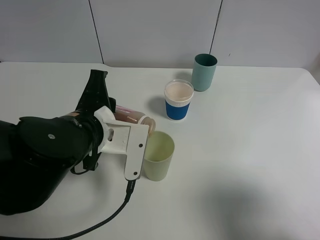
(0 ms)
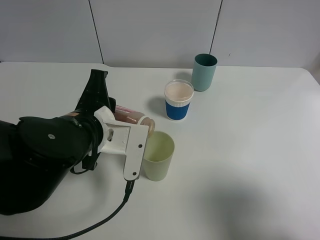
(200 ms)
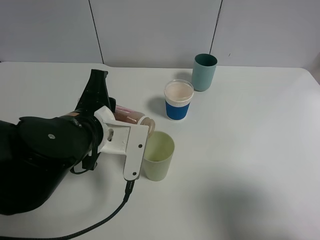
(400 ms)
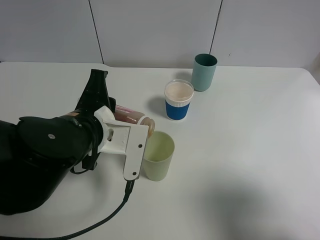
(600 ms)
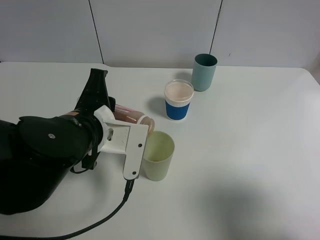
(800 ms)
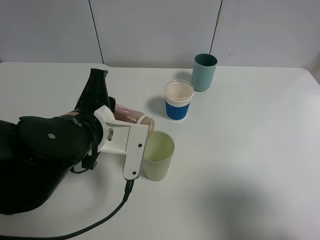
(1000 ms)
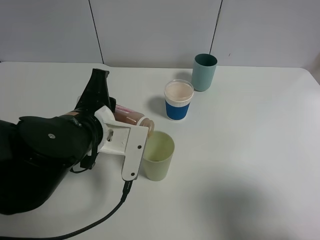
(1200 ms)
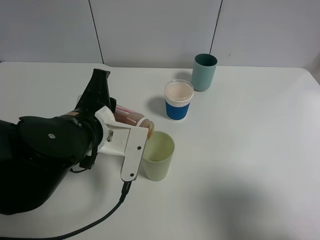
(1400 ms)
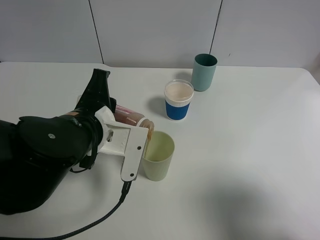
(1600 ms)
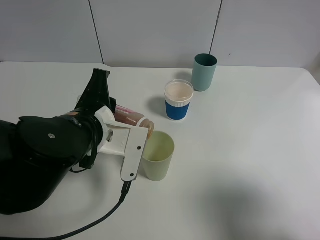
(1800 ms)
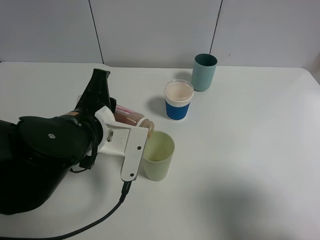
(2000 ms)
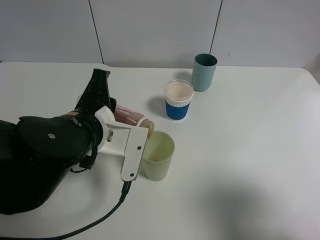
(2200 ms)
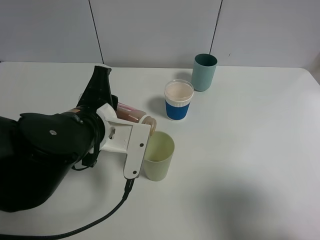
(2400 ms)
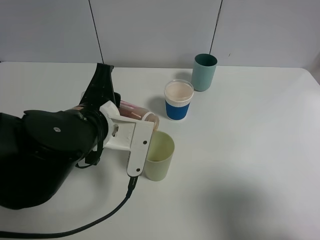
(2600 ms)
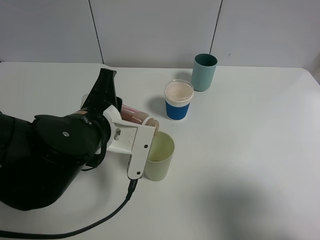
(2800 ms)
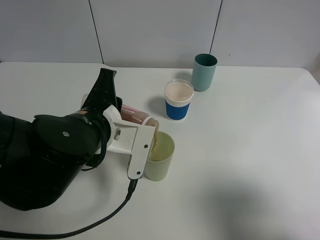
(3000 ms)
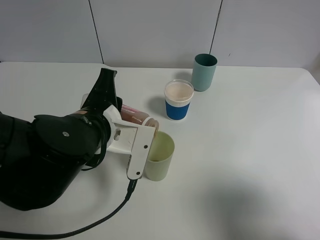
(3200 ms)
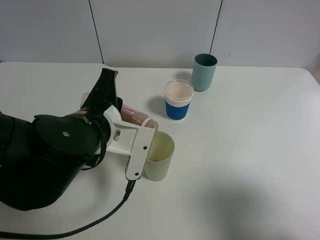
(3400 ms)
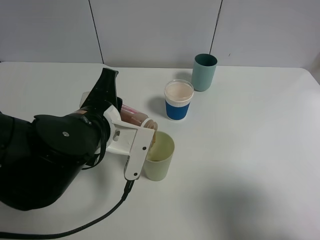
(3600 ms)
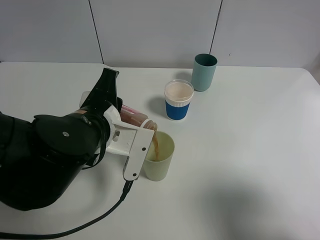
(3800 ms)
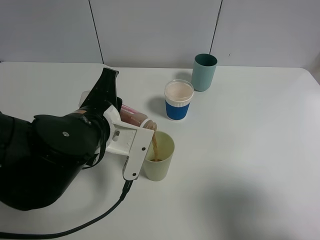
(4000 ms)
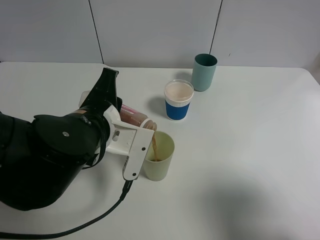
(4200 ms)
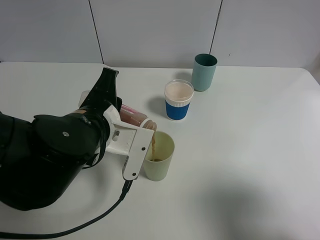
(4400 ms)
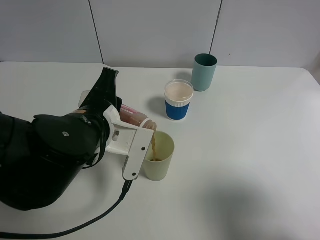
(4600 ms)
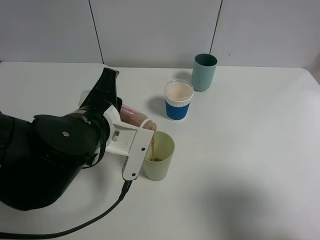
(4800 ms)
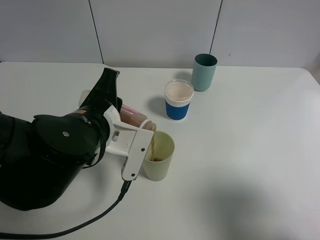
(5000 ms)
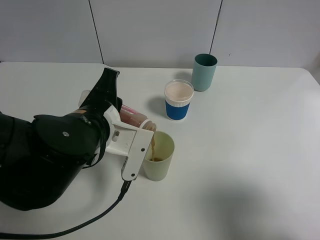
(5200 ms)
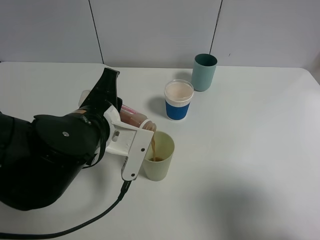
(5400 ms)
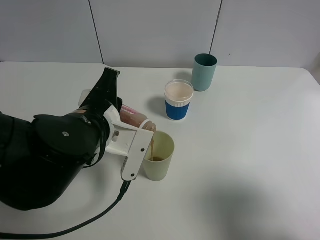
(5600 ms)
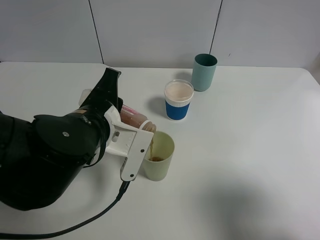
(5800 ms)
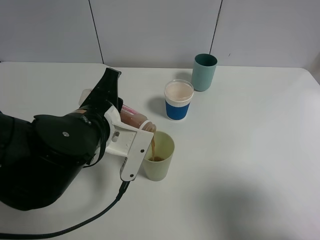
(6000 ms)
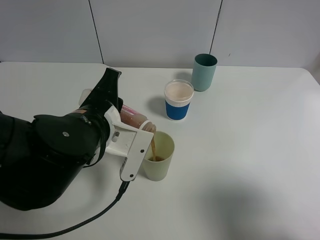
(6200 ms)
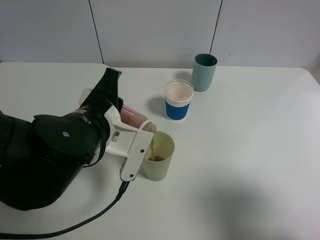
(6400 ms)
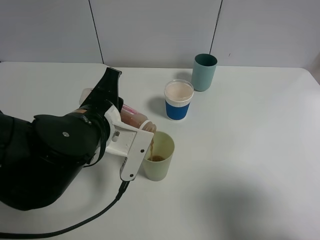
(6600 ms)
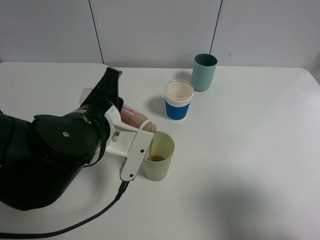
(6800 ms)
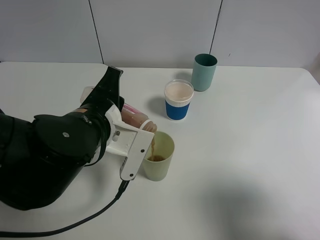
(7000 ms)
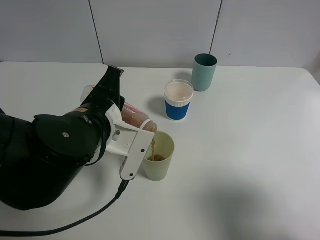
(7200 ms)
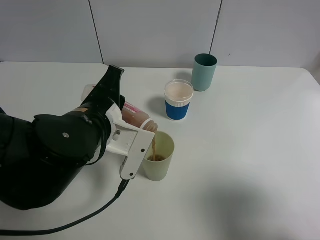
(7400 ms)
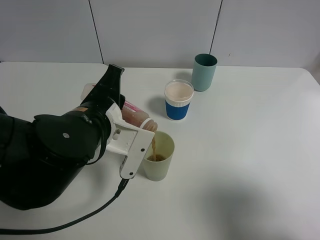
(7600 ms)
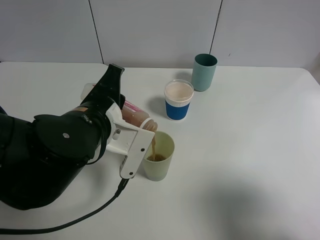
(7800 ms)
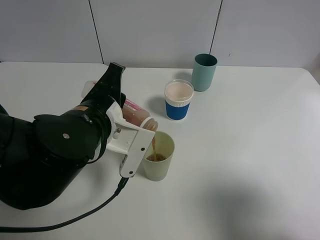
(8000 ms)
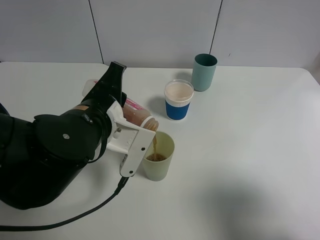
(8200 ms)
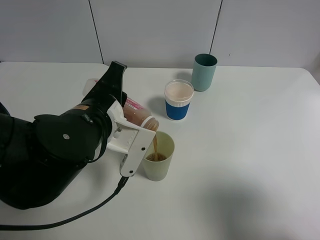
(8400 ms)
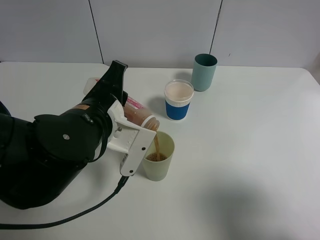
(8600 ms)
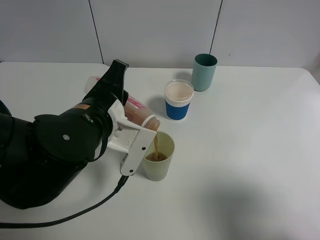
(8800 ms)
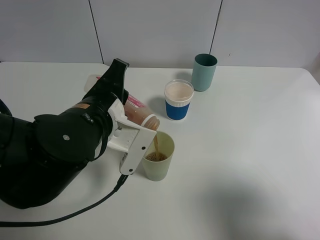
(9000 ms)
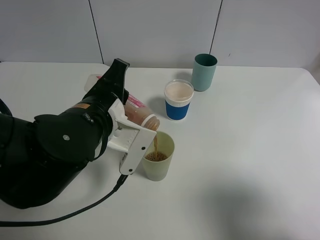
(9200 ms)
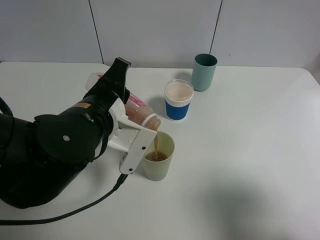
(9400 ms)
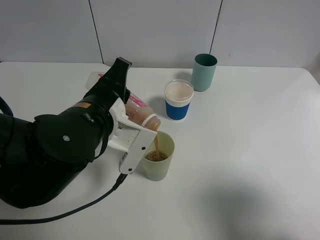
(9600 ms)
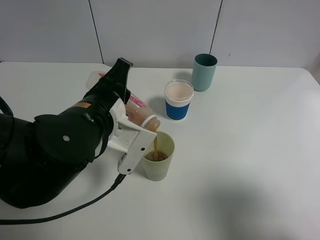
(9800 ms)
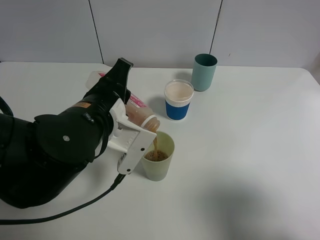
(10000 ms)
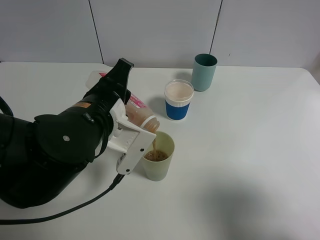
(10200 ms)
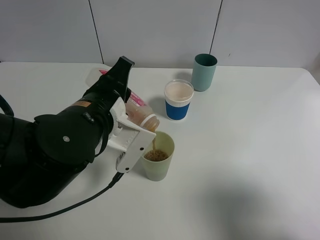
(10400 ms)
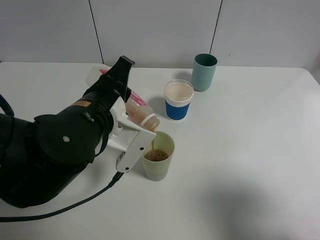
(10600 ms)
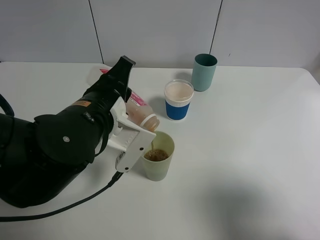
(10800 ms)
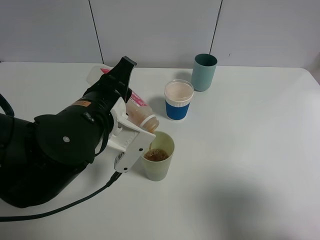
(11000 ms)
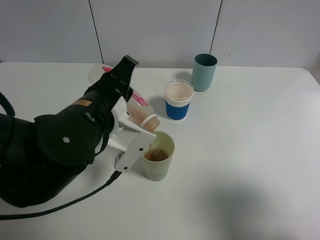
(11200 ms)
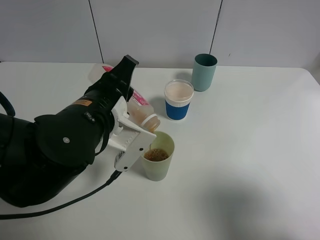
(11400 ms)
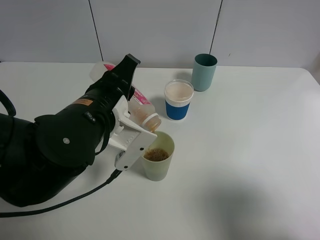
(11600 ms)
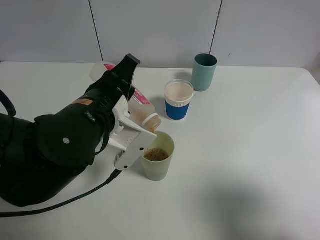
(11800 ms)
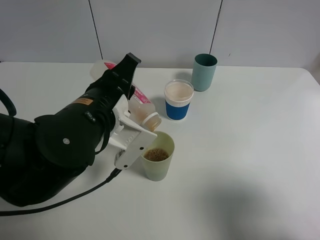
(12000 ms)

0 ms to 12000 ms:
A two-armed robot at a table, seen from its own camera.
Task of the whole recording: use a gripper to hold the bottle of the drink and pour it into a random cup.
0 ms to 3000 ms: Both grippers stay put.
3000 ms to 4400 ms: Both grippers stay about where they are.
4400 ms to 6000 ms: Neither gripper changes place.
6000 ms to 7600 ms: The two grippers keep their place.
7600 ms to 12000 ms: The grippers stay close to where they were, moving slightly.

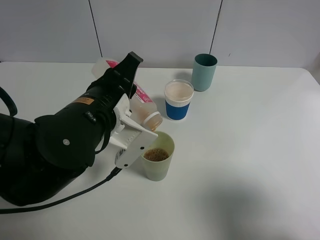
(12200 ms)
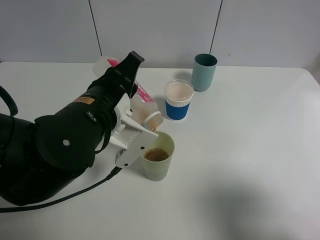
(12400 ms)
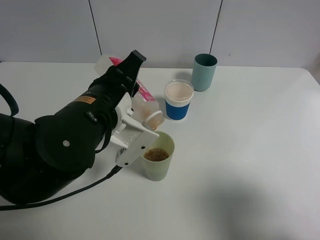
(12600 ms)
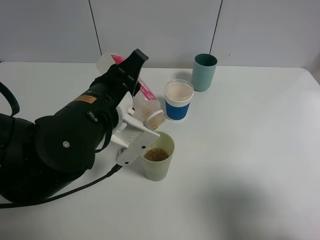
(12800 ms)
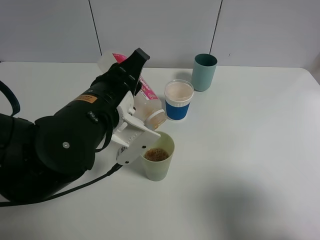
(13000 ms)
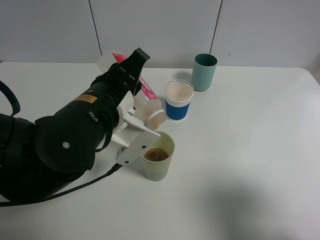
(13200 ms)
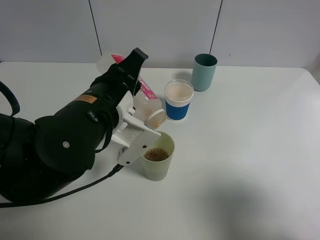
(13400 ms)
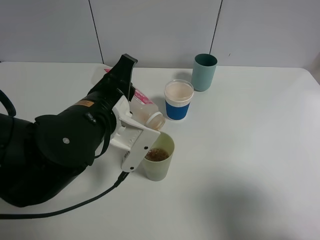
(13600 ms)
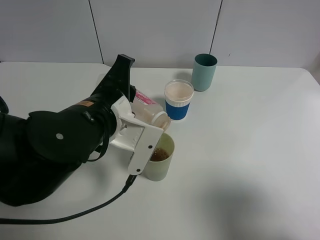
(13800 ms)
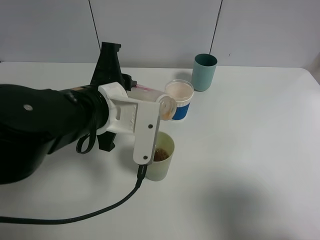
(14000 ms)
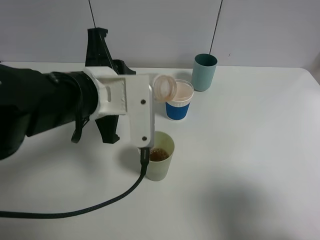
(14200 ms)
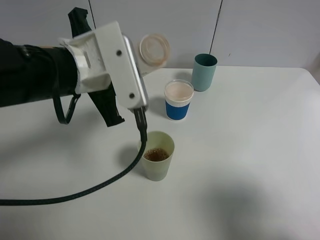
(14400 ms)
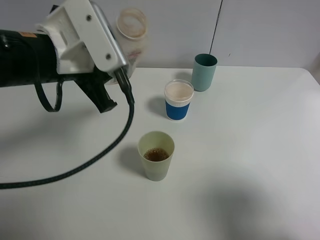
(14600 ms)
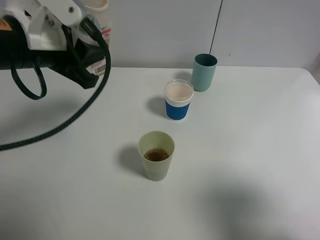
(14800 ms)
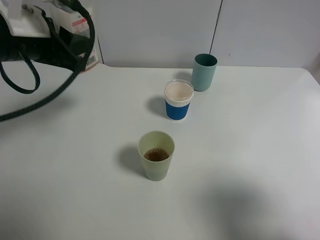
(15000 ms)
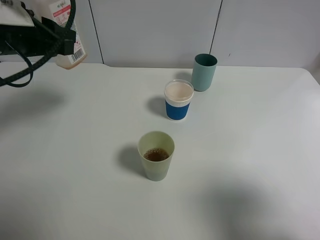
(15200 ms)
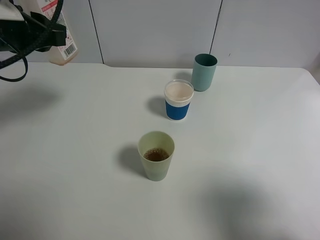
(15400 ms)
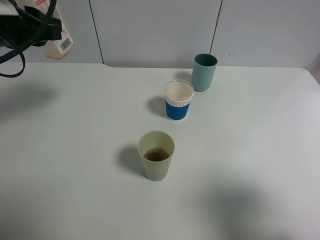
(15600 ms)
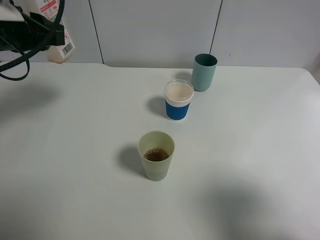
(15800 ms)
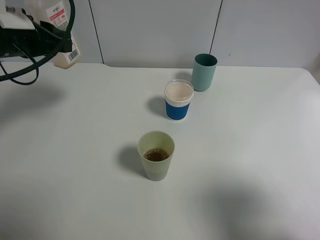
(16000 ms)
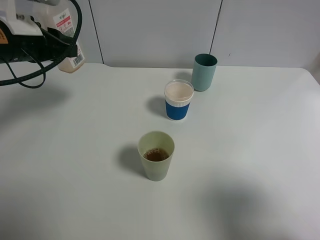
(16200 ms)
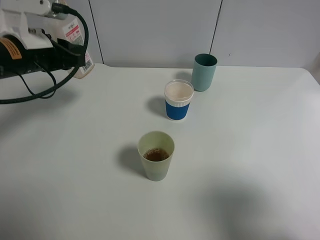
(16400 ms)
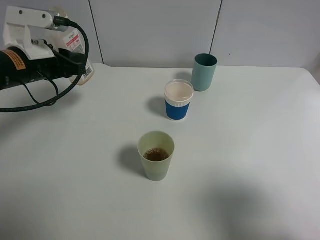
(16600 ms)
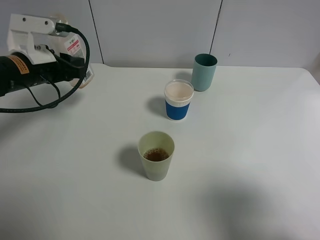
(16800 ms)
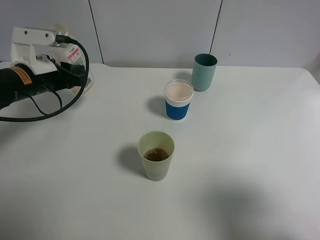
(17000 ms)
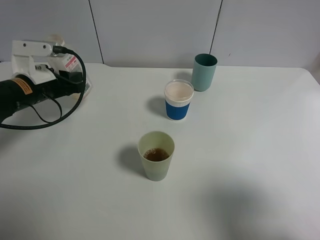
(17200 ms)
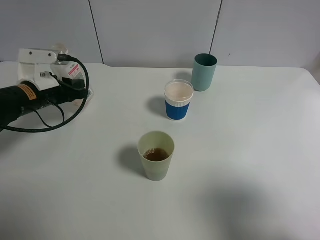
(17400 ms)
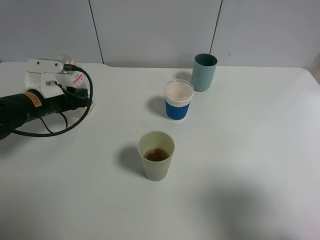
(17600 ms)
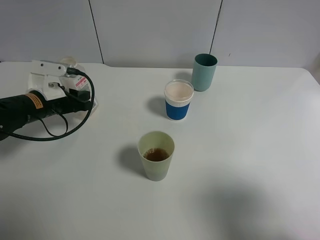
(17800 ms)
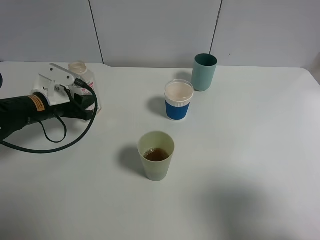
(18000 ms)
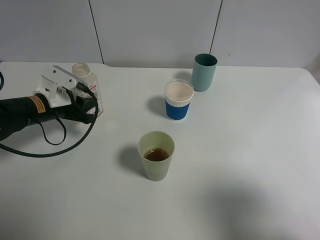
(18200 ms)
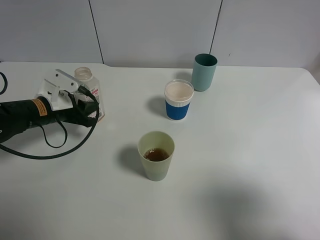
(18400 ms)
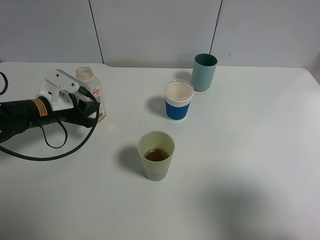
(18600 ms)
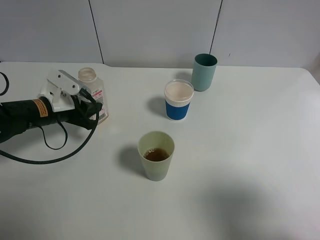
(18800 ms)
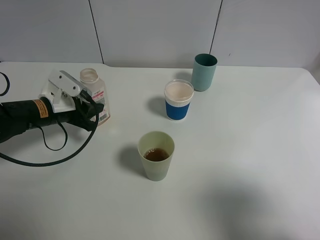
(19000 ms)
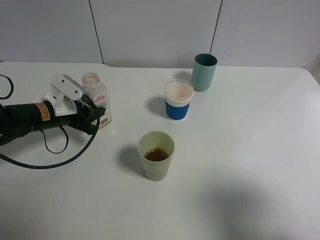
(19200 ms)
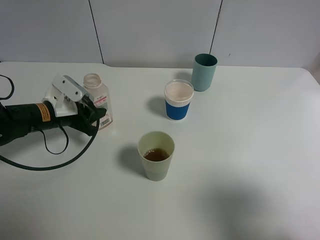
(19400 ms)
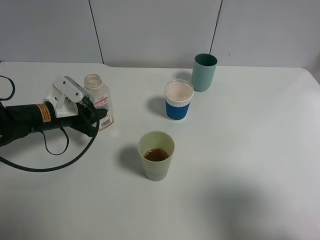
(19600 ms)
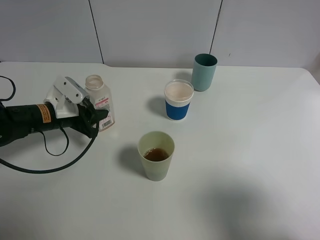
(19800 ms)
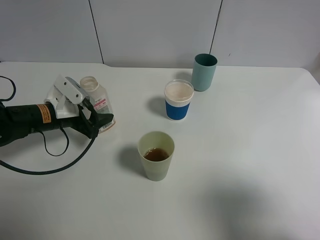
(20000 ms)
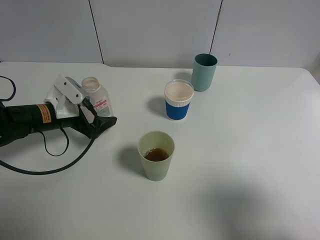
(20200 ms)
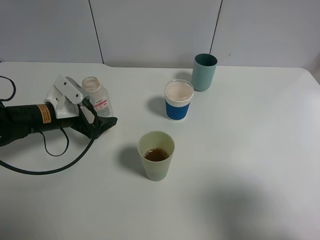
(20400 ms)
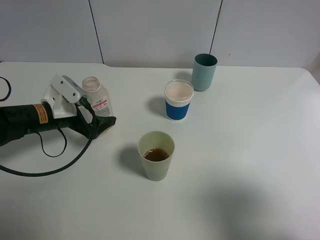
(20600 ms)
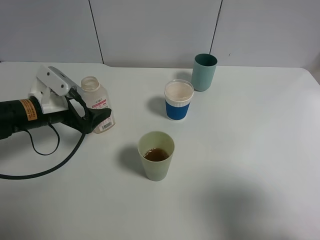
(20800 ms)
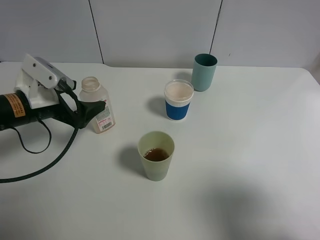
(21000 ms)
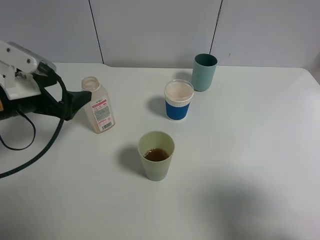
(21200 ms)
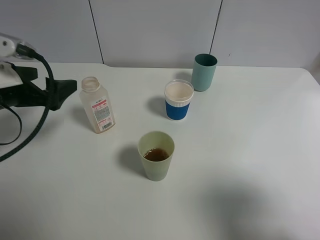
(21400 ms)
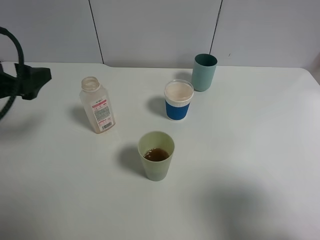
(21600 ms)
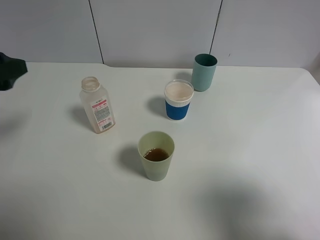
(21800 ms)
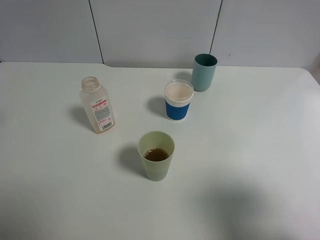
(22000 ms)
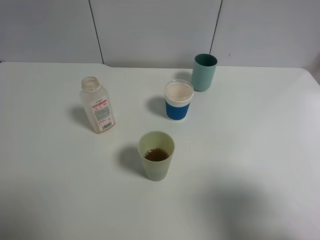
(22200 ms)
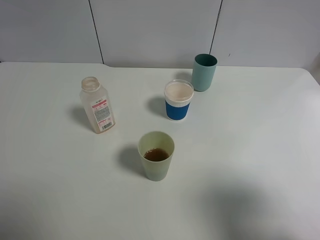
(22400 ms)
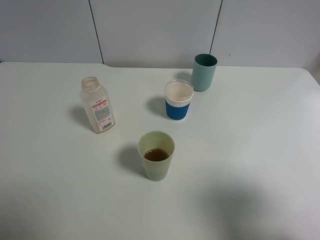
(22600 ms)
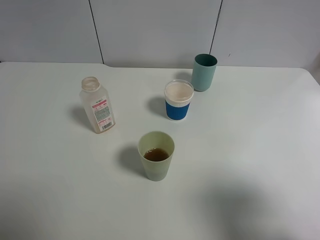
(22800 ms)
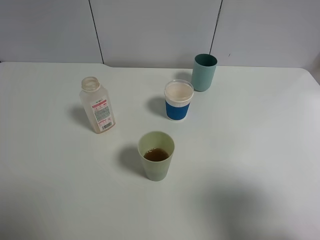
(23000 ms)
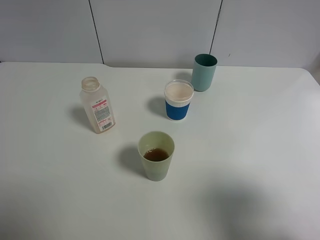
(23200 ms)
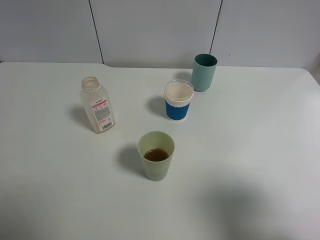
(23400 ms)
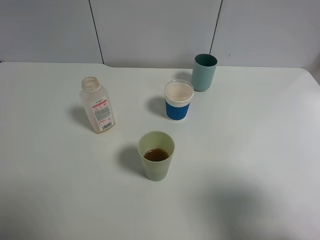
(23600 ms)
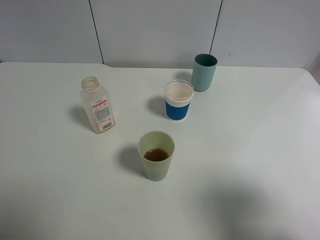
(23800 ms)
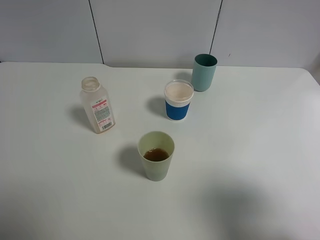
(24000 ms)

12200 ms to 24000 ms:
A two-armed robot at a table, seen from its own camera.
Task of the whole recording: use a gripper to hold the bottle of the drink and pour it into a random cup.
Step, 12400 ms to 21400 ms: Place the cranberry juice bottle on the table with the left gripper.
12200 ms to 13600 ms: The grippers stay close to where they were, moving slightly.
13600 ms to 15200 ms: The left gripper shifts approximately 20 cm to the left, upward and forward.
15200 ms to 16600 ms: The left gripper travels downward by roughly 10 cm.
16600 ms to 18200 ms: The left gripper is displaced downward by approximately 10 cm.
18200 ms to 19600 ms: There are only small adjustments of the grippers.
19600 ms to 21000 ms: The left gripper goes about 5 cm upward, and opens up.
21000 ms to 22600 ms: The left gripper heads backward and upward, covering about 25 cm.
